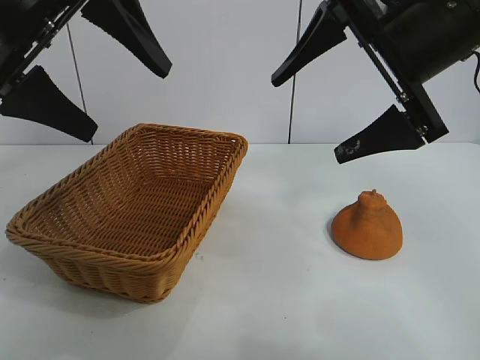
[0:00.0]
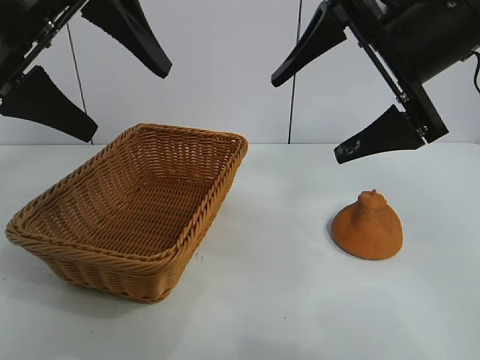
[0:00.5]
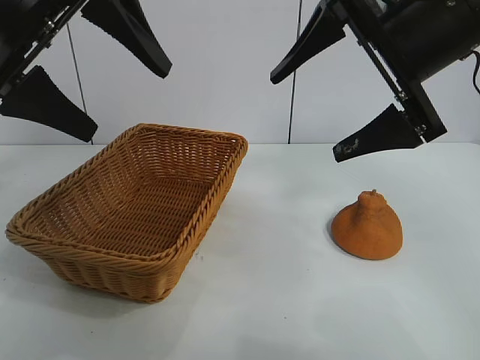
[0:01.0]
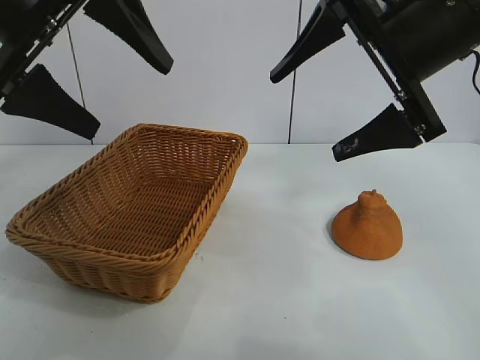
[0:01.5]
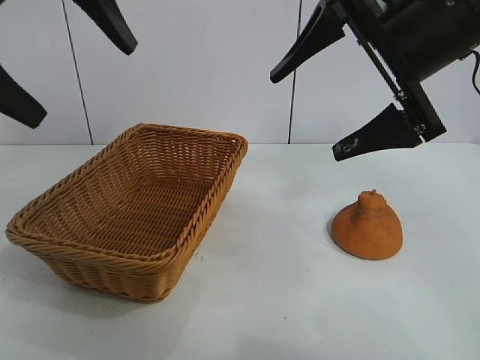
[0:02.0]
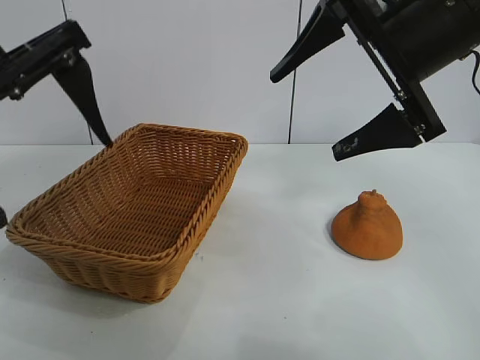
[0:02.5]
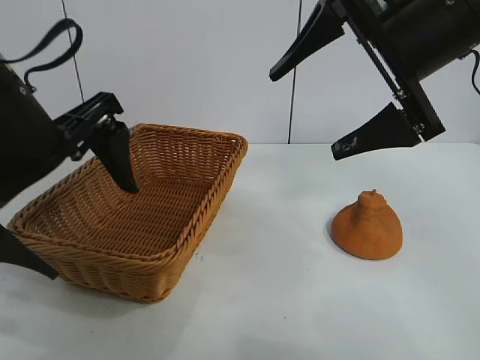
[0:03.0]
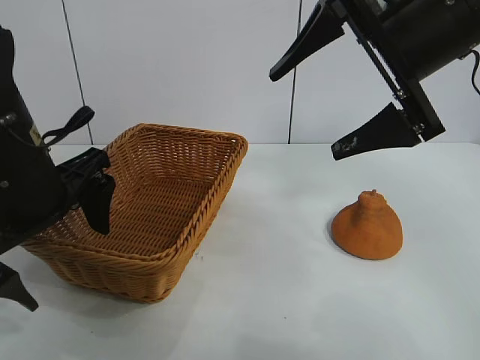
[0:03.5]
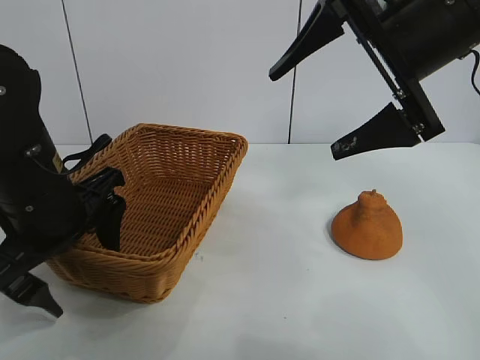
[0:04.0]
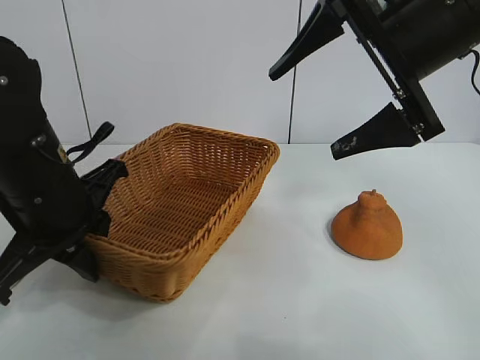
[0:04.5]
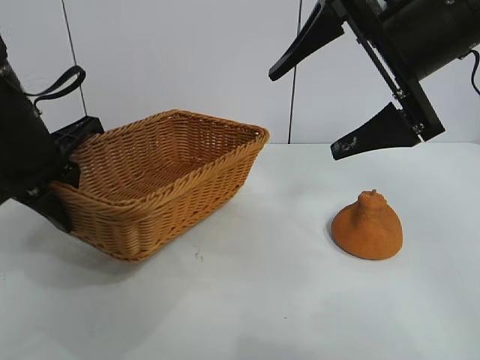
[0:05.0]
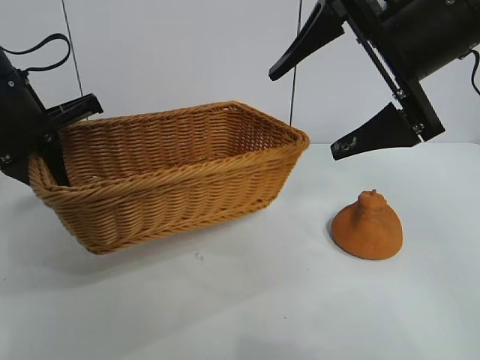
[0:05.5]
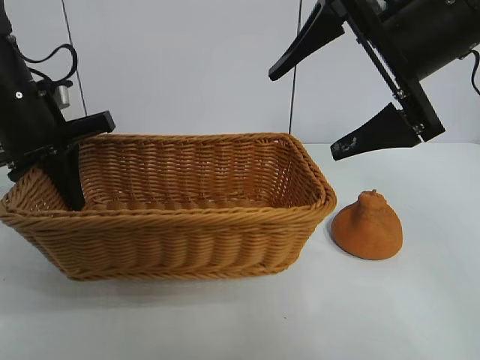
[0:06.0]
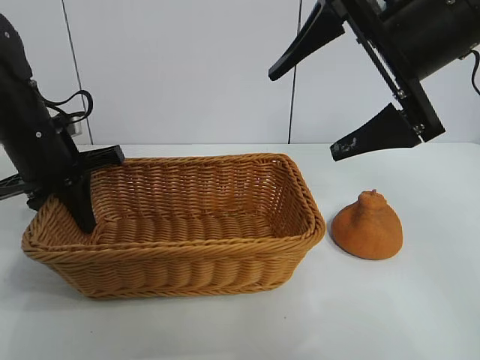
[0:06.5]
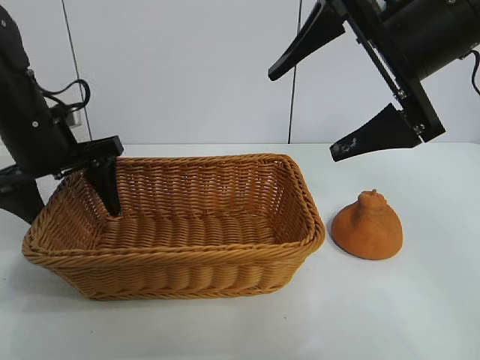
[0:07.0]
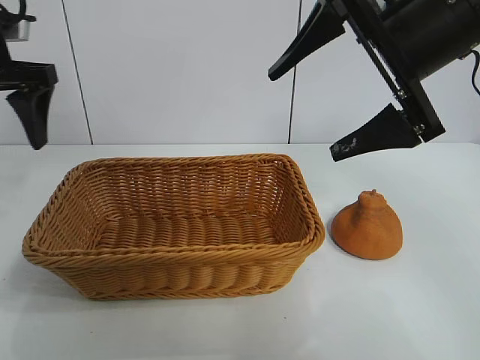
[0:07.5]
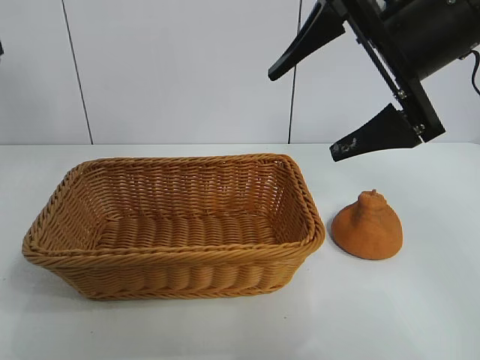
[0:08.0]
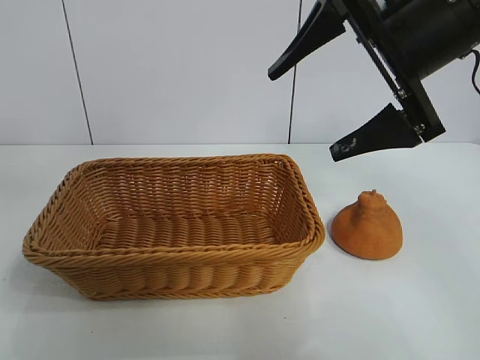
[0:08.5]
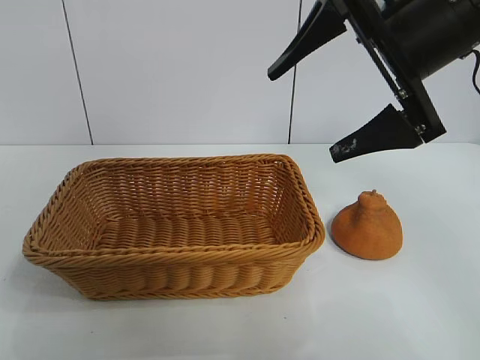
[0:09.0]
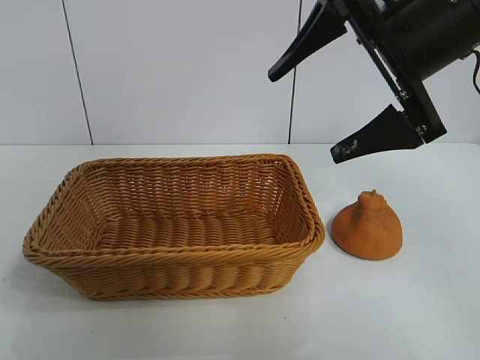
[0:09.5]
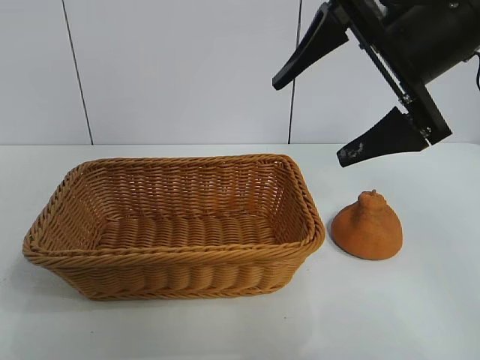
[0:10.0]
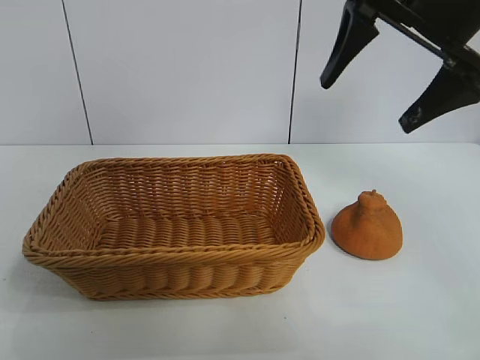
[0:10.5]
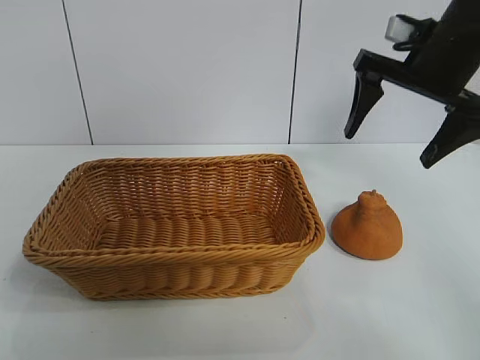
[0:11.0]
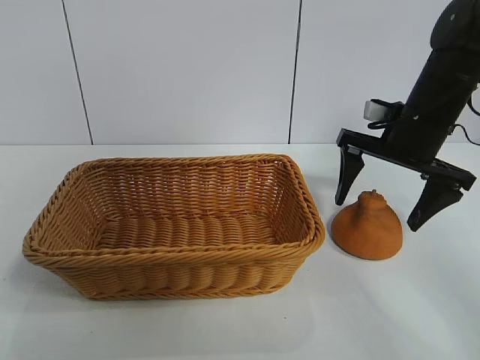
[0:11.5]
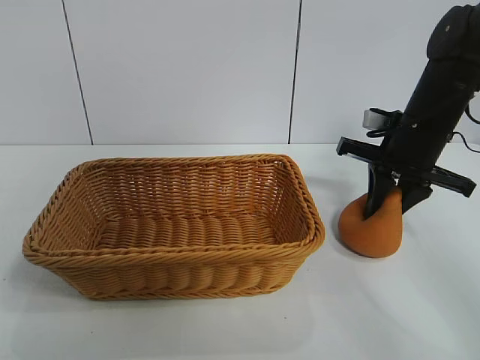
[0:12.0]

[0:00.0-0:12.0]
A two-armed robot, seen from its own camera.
Task of the whole recording: pick up the orange and put it into the basket.
Step, 0:01.5 to 0:04.0: Grasp the basket with left gripper.
Step, 0:04.5 to 0:06.5: Place the basket in the center of view with left gripper.

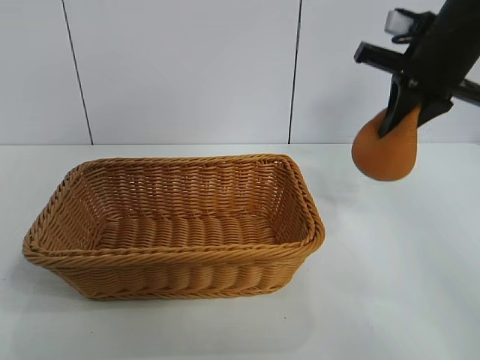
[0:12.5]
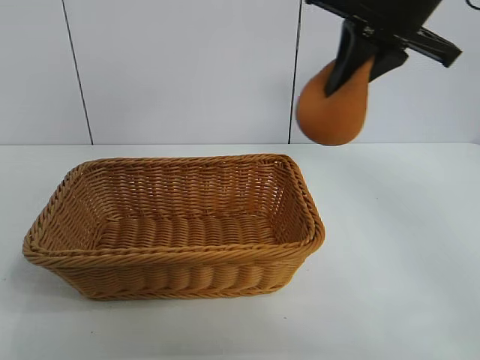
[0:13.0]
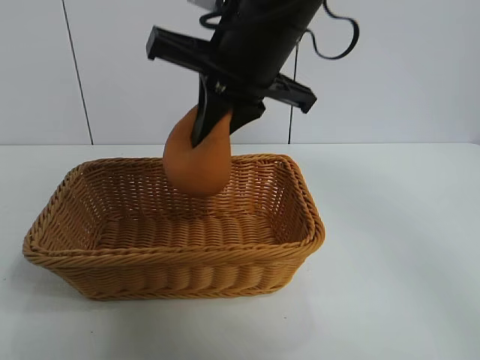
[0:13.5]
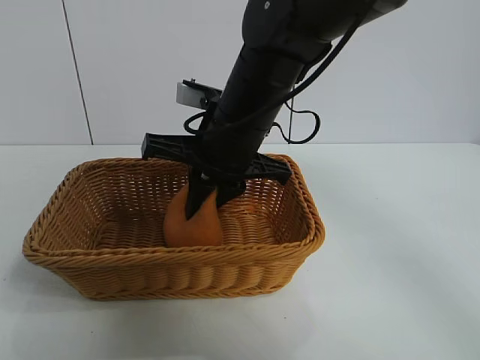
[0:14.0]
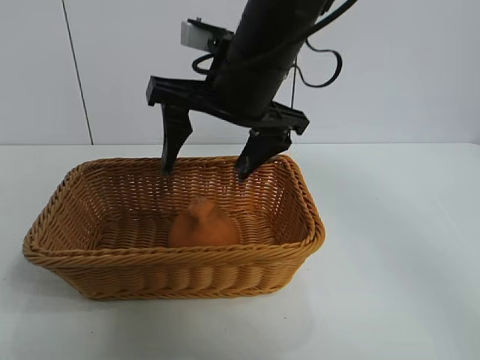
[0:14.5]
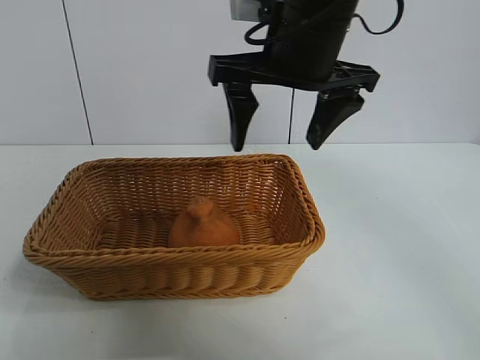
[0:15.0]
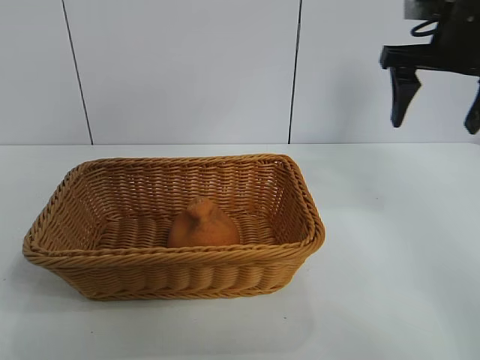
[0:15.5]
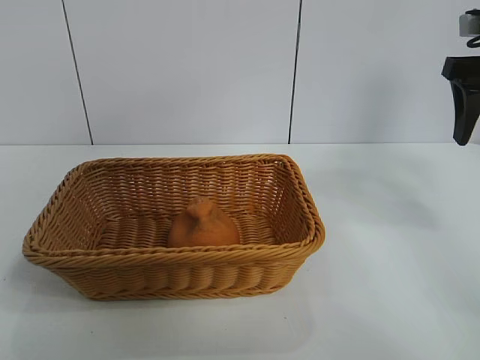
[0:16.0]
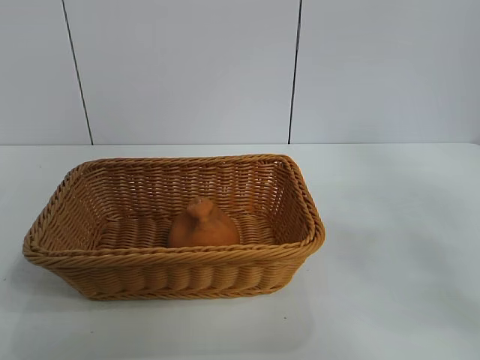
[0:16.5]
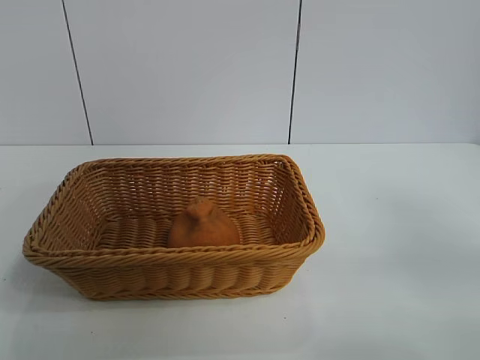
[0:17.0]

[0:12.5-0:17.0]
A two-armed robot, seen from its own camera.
Task of the whole recording: pick up the orange and put it into the basket.
Step, 0:12.5 to 0:14.0: Place the orange in the basket with right gripper.
